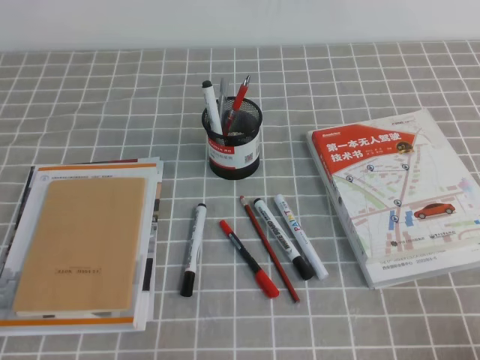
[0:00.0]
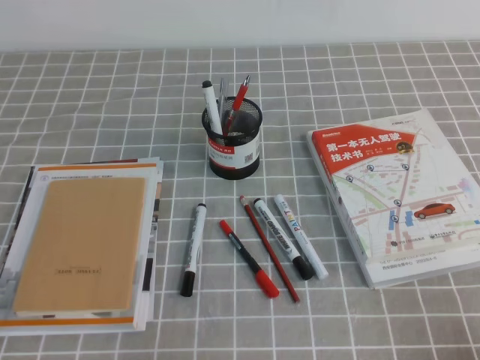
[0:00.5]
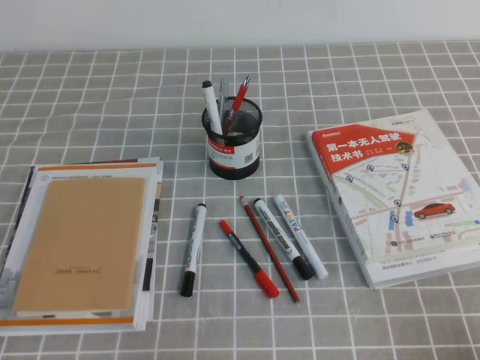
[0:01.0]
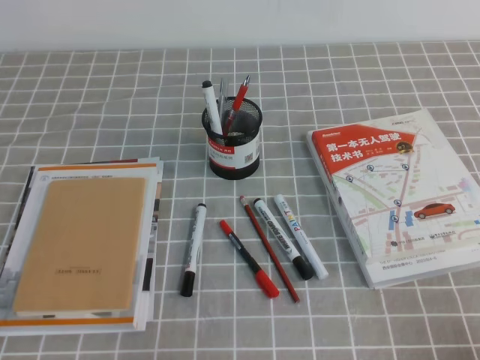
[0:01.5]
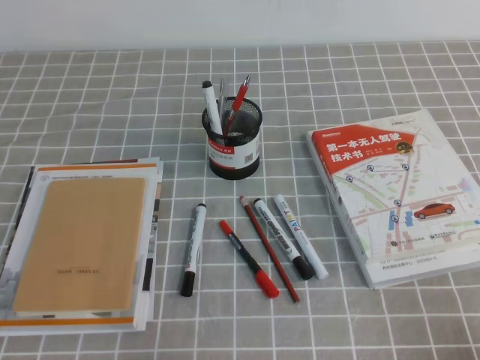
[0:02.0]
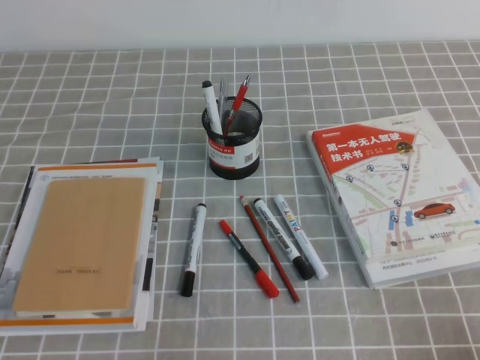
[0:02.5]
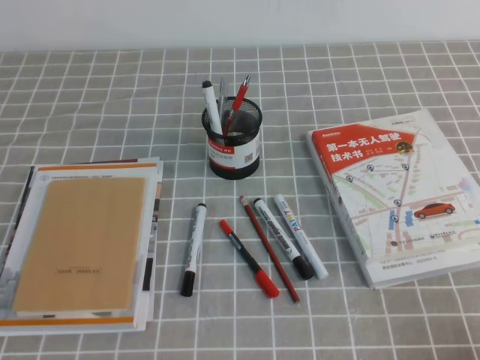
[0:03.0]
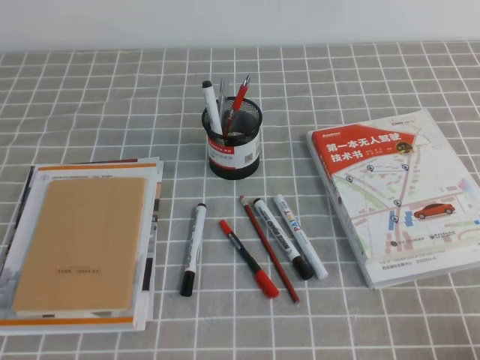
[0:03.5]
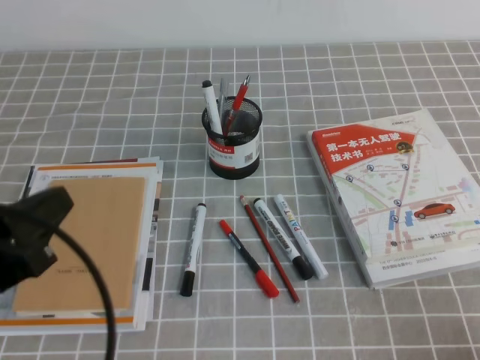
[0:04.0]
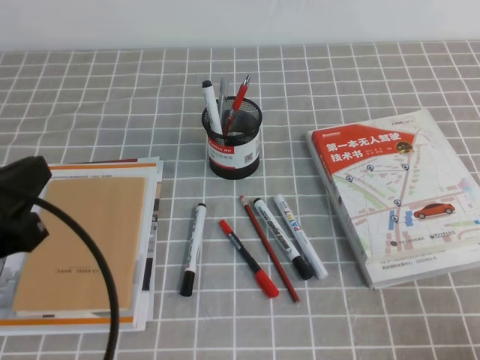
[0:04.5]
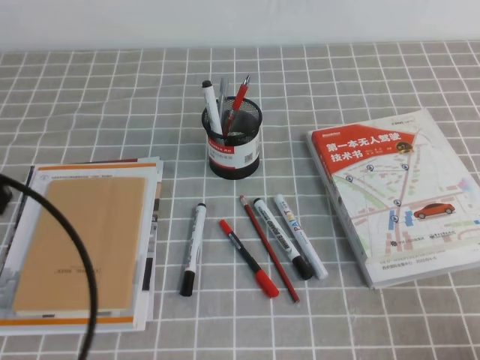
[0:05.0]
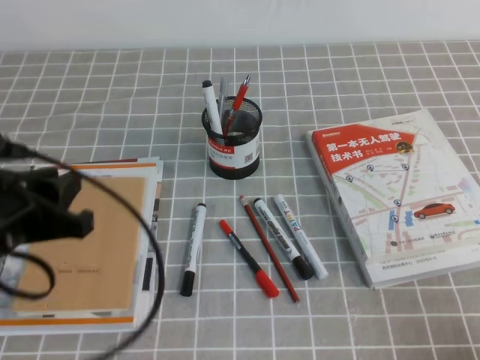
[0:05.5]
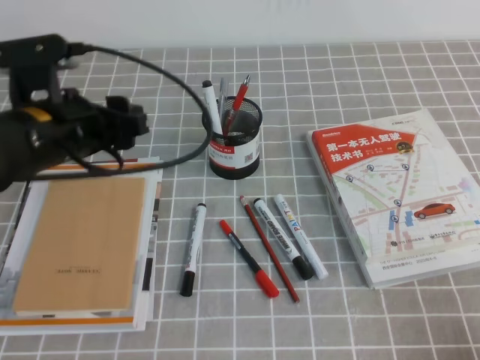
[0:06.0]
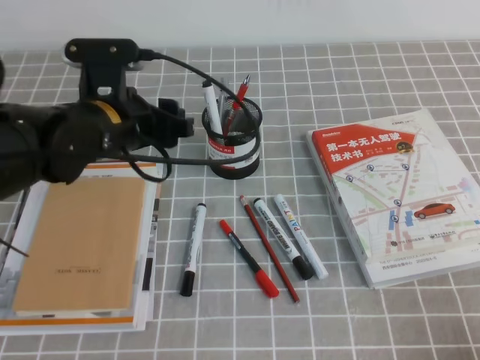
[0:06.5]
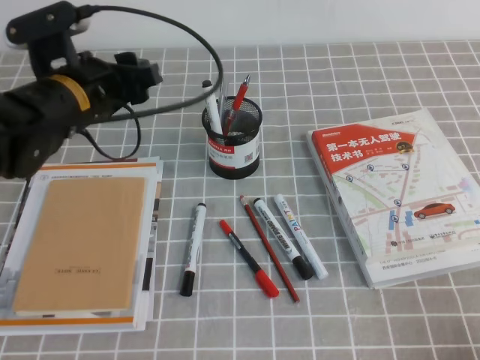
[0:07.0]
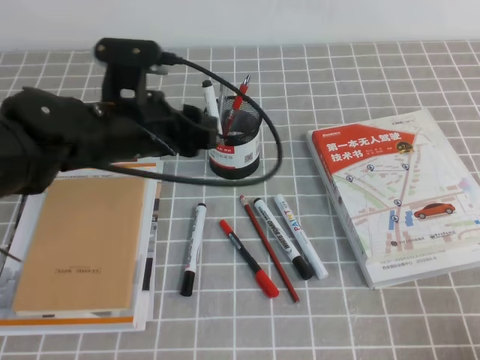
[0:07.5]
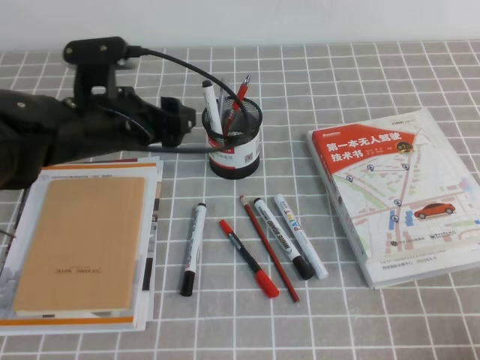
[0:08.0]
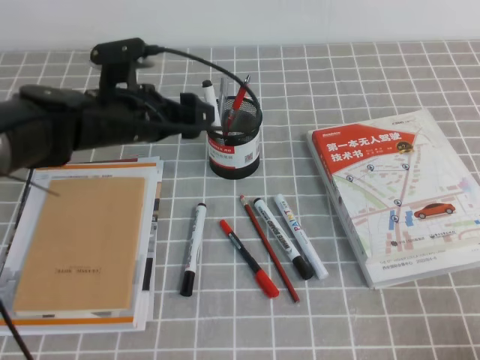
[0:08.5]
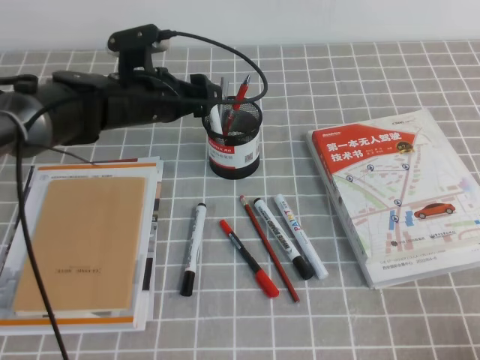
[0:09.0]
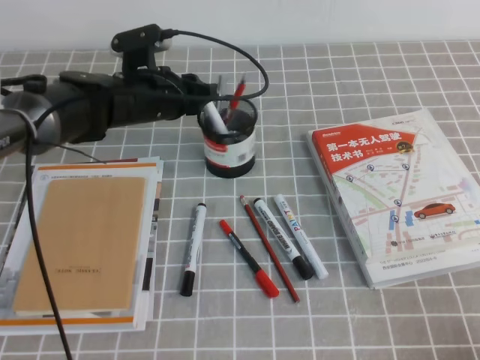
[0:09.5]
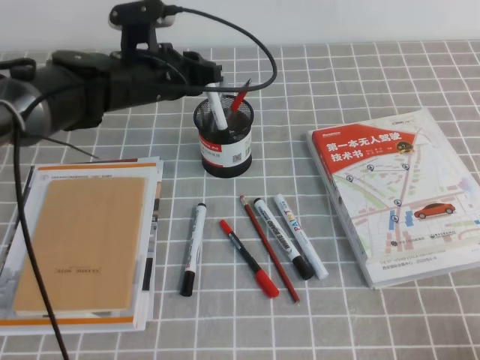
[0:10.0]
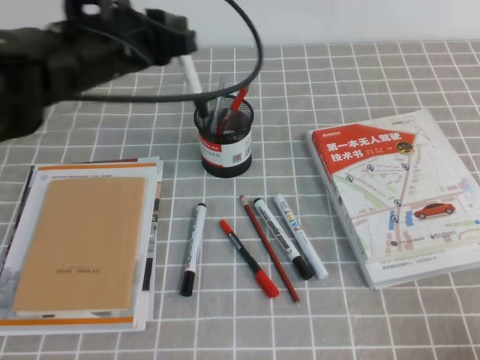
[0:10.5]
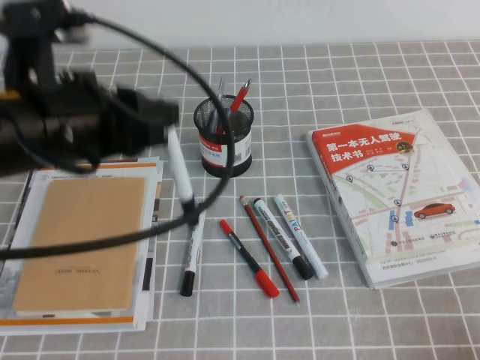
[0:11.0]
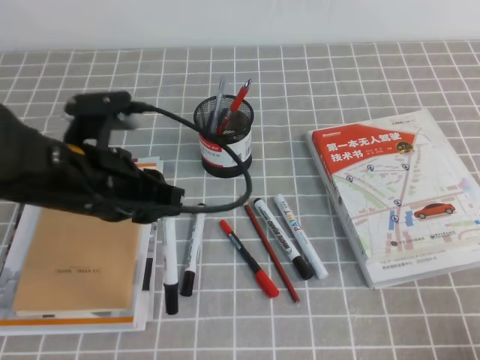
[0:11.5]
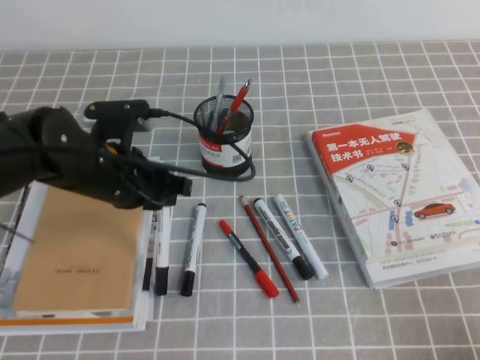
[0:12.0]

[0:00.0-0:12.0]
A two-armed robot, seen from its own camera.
0:02.0 to 0:04.0: The left gripper travels upward by some 10 cm.
0:04.0 to 0:06.0: The left gripper travels forward by approximately 15 cm, and opens.
0:06.0 to 0:08.0: The left gripper travels to the right and forward by about 10 cm.
0:08.0 to 0:10.0: The left gripper goes approximately 10 cm forward, and closes up.
0:10.0 to 0:12.0: The left gripper moves backward, about 15 cm.

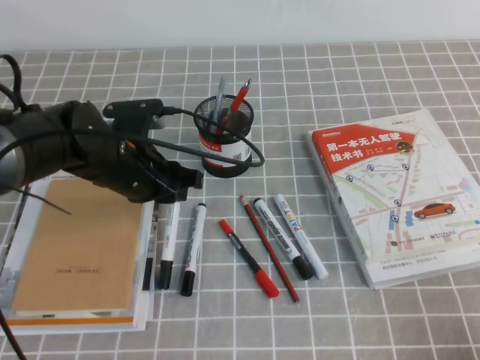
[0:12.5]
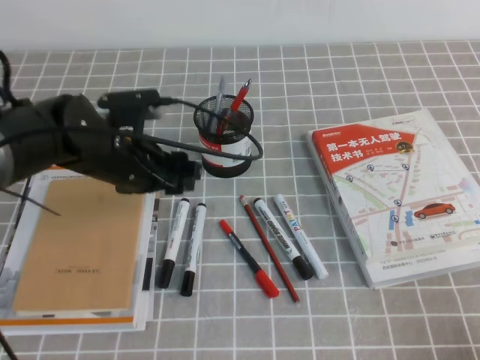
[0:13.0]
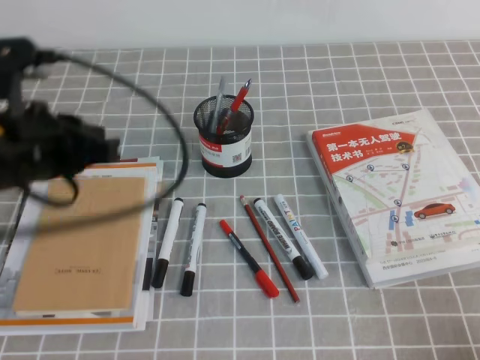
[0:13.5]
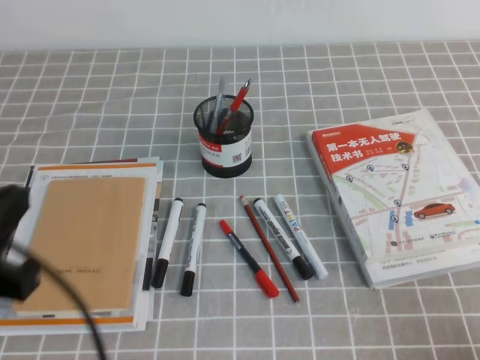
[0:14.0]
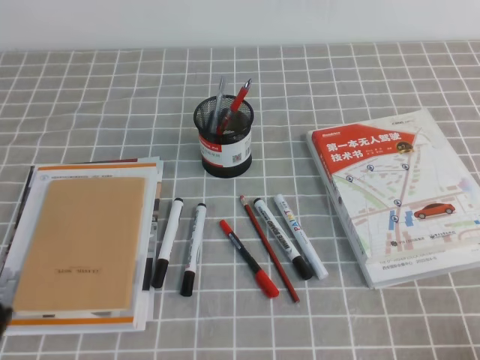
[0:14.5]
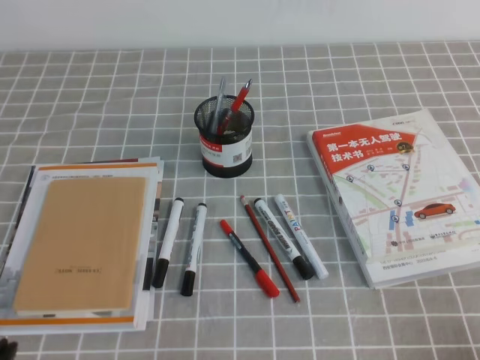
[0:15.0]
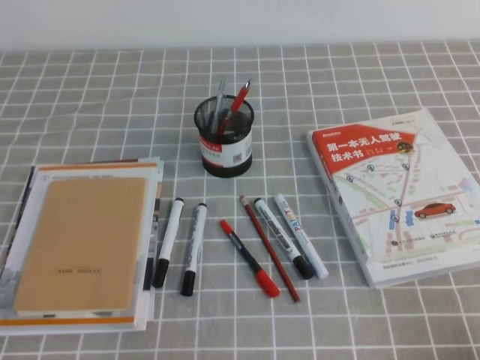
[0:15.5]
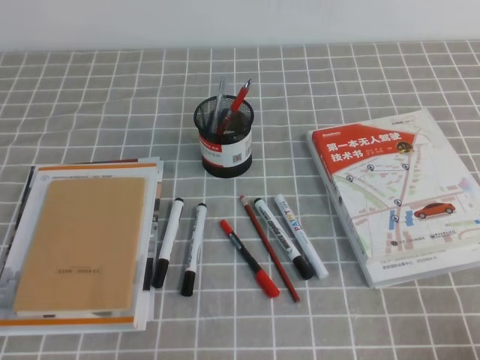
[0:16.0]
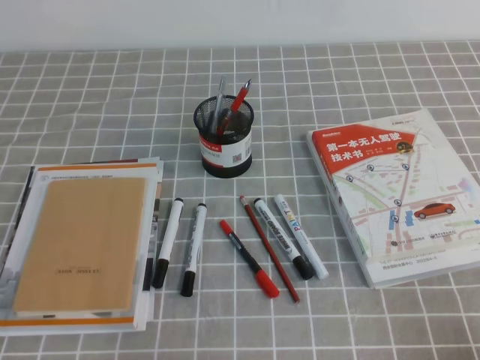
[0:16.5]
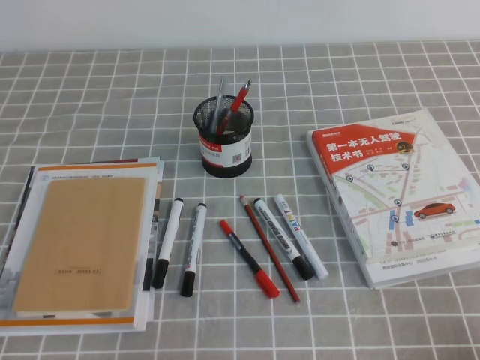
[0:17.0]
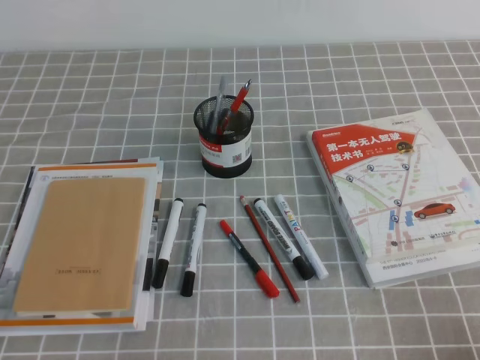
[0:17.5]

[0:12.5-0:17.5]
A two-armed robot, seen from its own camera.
Step, 0:12.5 to 0:17.5: Pick up the pen from the pen holder.
0:12.5 to 0:15.0: The left gripper is displaced backward and to the left by about 30 cm, and opens, then closes again.
